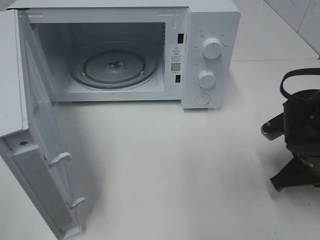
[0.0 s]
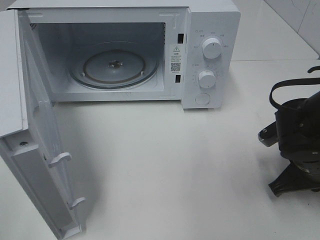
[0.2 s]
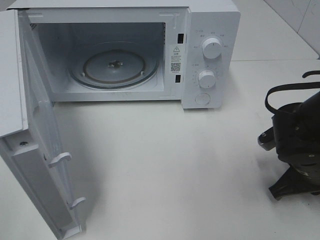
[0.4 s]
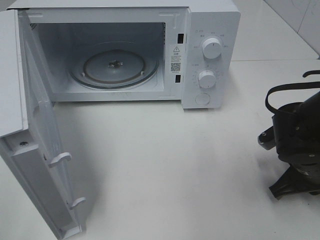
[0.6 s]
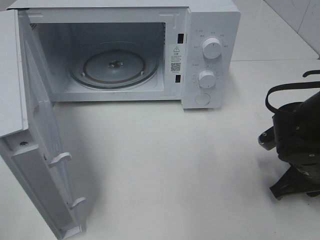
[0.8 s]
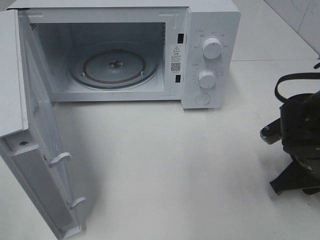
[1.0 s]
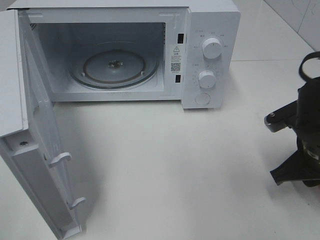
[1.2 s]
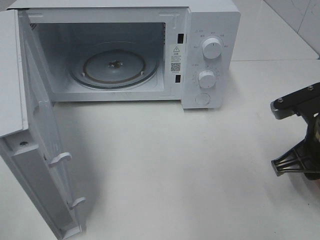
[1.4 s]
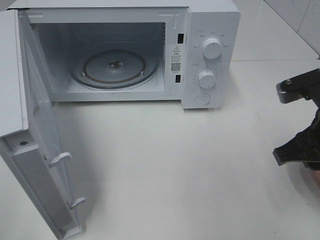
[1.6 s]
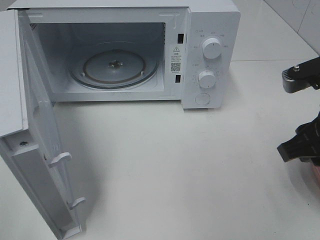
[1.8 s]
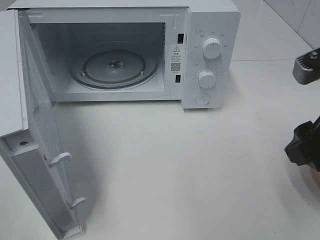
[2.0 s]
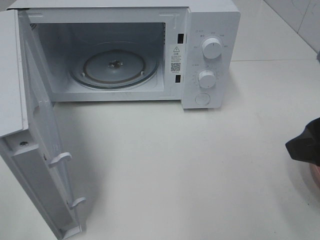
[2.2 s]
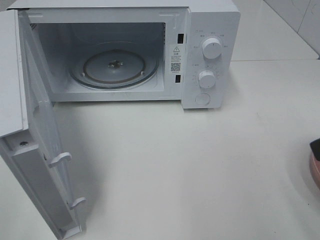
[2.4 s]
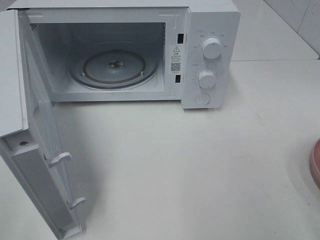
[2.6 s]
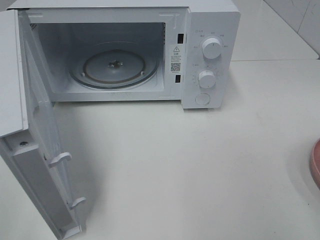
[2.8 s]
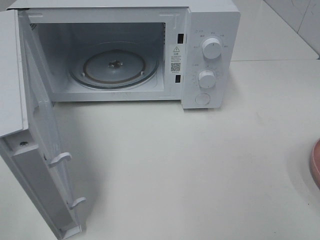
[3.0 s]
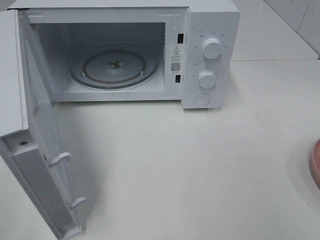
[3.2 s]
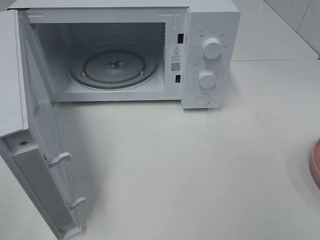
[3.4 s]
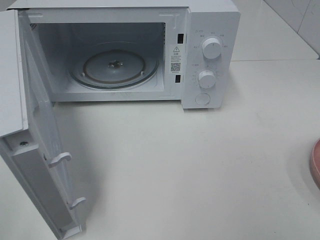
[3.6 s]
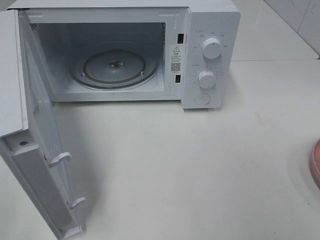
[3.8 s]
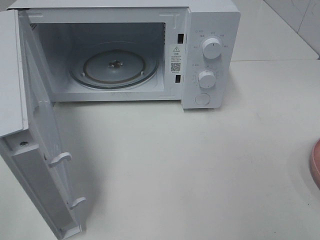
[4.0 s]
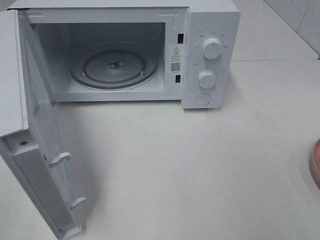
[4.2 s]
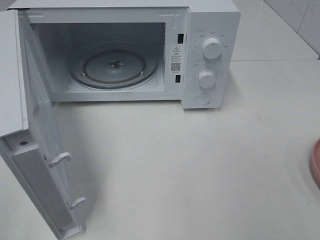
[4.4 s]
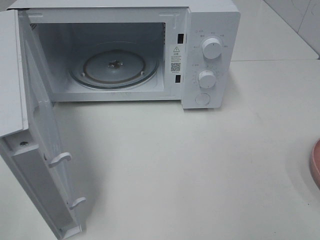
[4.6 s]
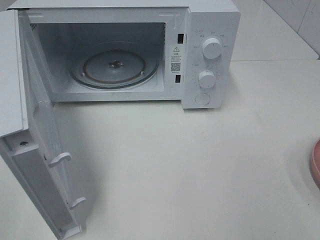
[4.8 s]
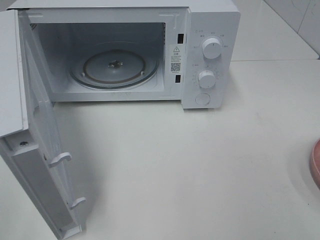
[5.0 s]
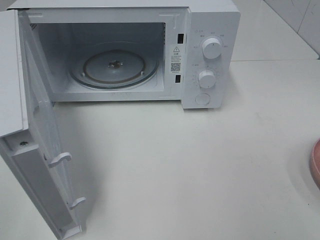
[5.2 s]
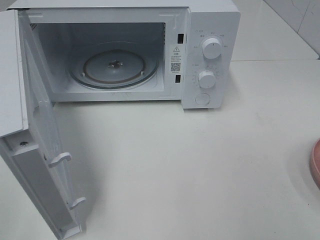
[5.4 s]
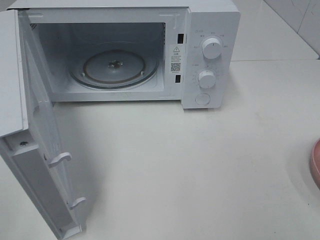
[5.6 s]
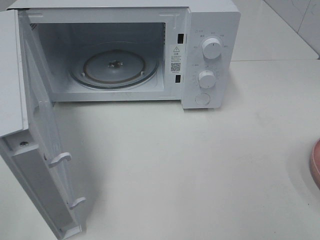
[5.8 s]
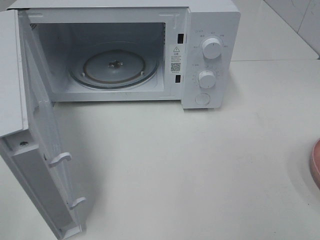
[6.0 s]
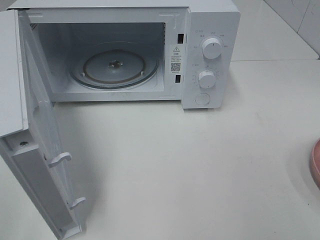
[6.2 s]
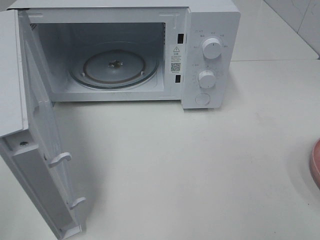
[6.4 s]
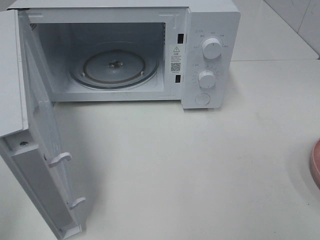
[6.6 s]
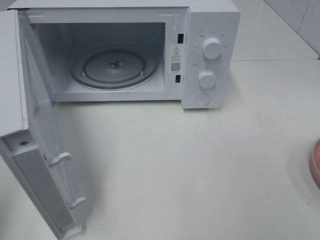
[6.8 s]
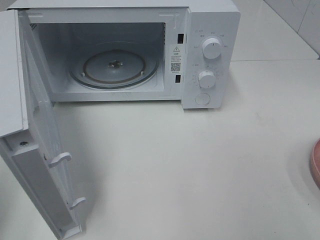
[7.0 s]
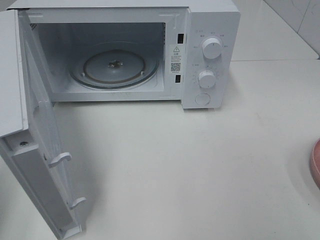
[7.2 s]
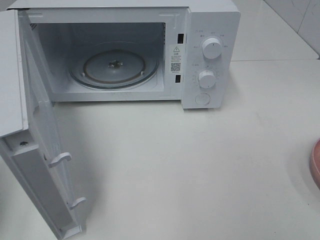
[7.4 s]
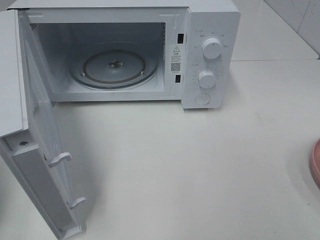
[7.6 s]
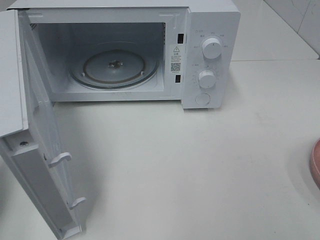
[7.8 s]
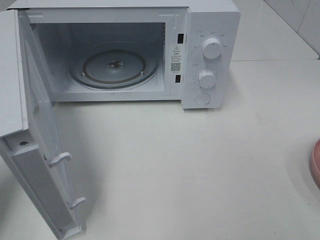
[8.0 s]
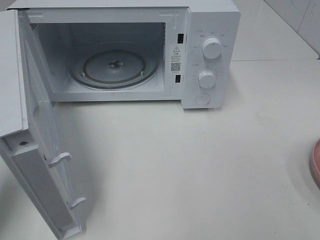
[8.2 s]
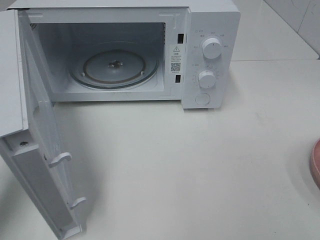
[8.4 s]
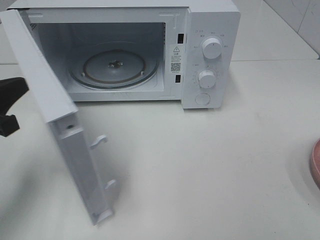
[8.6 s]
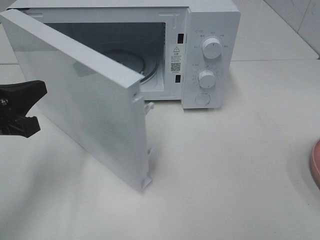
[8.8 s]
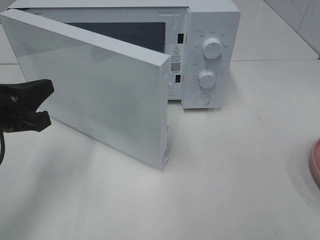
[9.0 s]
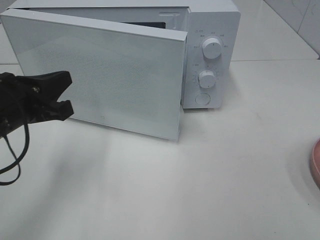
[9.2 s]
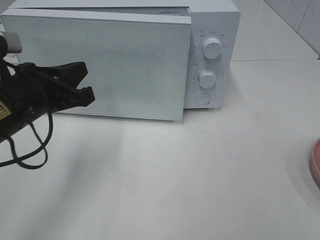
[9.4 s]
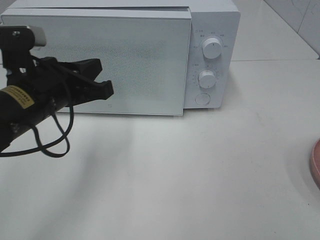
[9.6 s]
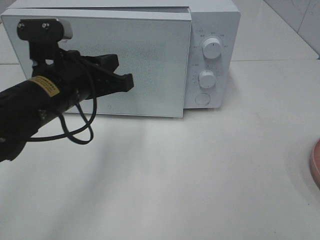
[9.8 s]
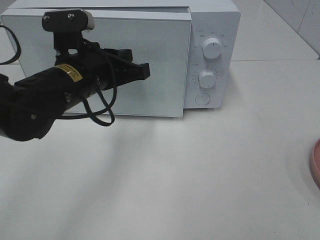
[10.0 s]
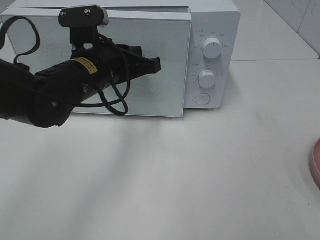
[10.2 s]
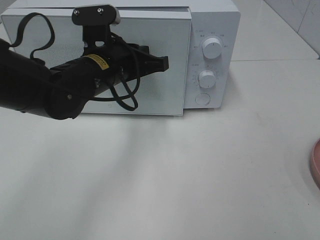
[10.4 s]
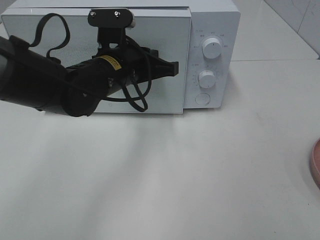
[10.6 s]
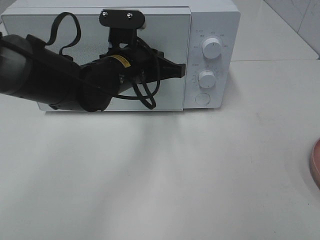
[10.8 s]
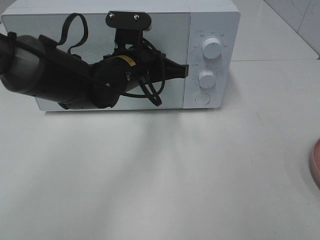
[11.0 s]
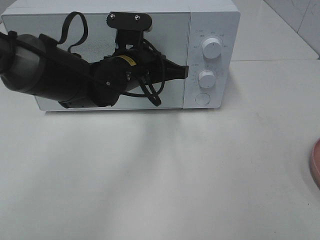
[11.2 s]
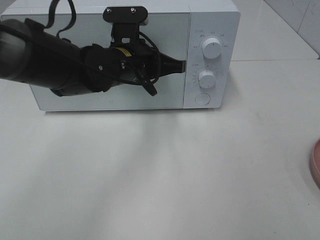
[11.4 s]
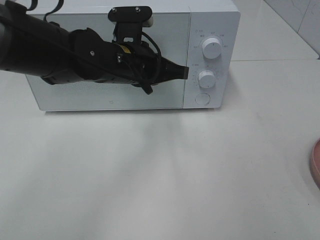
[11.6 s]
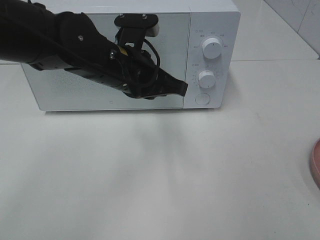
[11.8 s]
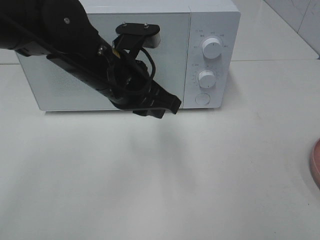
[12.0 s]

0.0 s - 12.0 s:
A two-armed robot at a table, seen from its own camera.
Task of the whole recording: Heat the burger.
Step, 1.2 s - 11.6 s: Left hand: close the microwave door.
0.0 s - 1.6 s: The right gripper is displaced upward by approximately 10 cm, and opens up.
1.6 s - 3.0 s: The right gripper heads backward and upward, covering approximately 20 cm, and opens.
4.4 s - 6.0 s: Neither gripper changes place.
7.6 s - 9.0 s: The left gripper goes some 15 cm to the right, forward and downward.
9.0 s - 10.4 s: The left gripper travels to the right and forward by about 20 cm.
10.4 s - 12.0 s: The left gripper ends up roughly 5 cm from where it was.

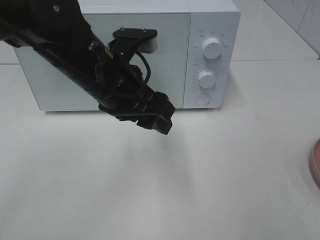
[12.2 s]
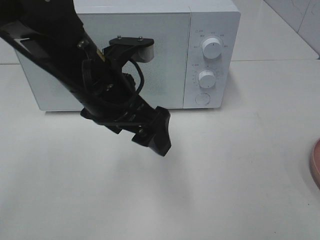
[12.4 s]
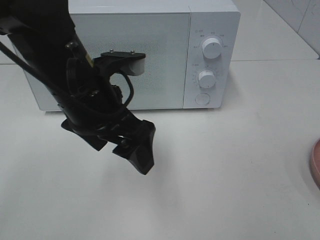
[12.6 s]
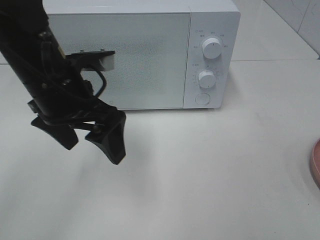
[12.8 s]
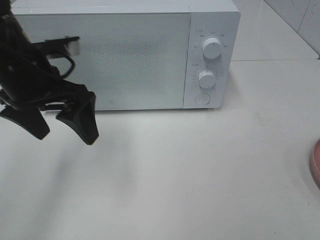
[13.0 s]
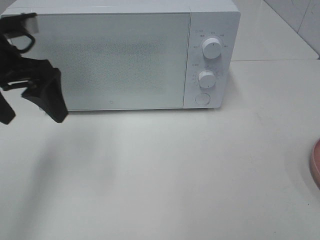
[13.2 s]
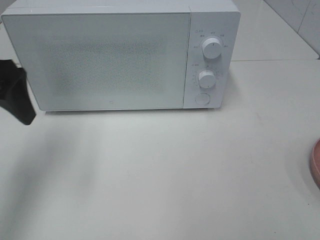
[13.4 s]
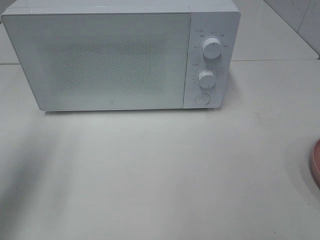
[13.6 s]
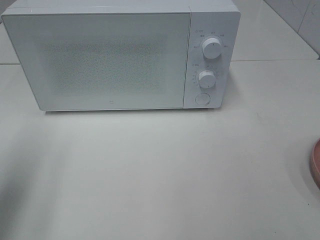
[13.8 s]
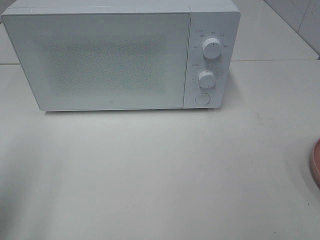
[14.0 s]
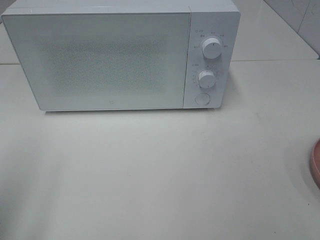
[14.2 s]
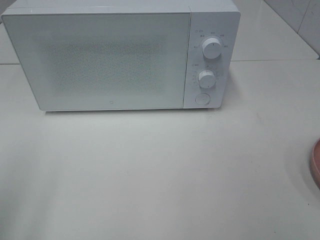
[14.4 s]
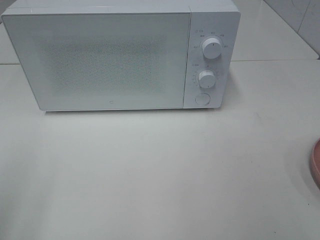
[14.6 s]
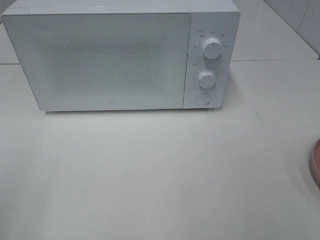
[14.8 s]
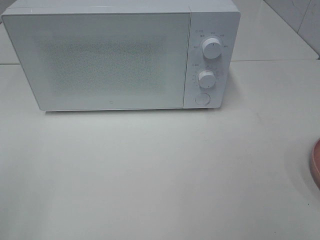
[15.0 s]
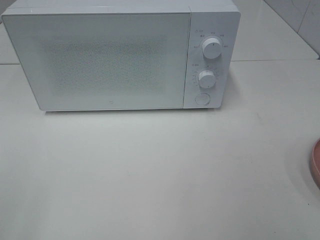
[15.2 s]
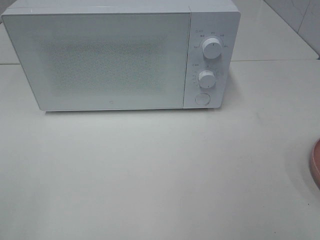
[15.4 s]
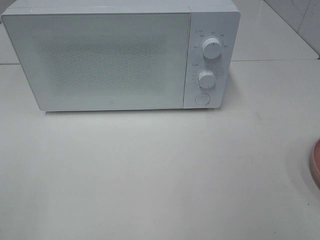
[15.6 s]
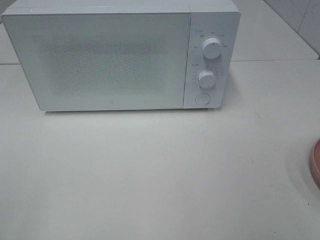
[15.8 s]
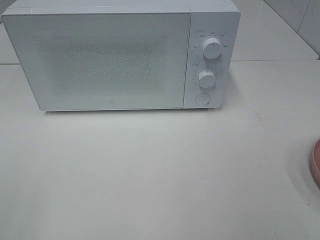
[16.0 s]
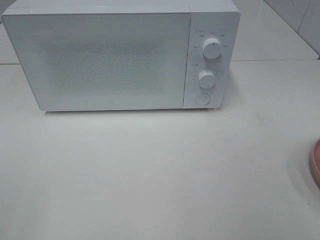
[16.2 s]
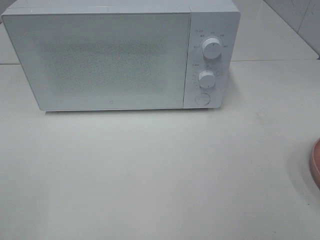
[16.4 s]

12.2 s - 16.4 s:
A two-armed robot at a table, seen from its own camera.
Task of the whole recording: Heat the burger.
12.2 s - 13.6 s: The left gripper is displaced to the left by some 25 cm.
13.6 s - 15.0 s: The left gripper heads backward, covering approximately 20 cm.

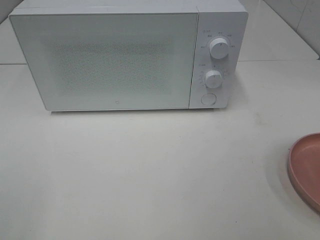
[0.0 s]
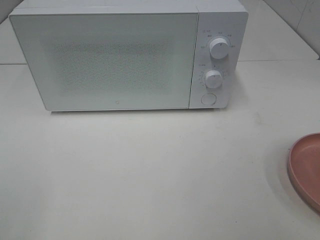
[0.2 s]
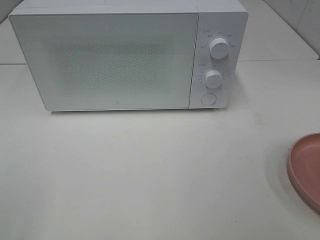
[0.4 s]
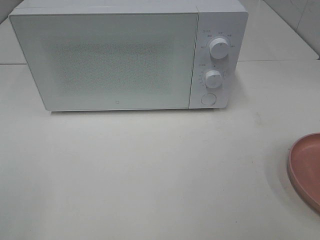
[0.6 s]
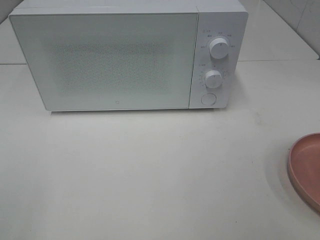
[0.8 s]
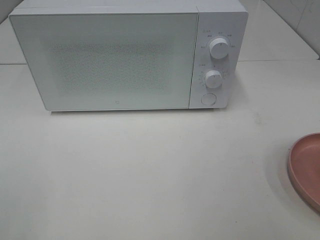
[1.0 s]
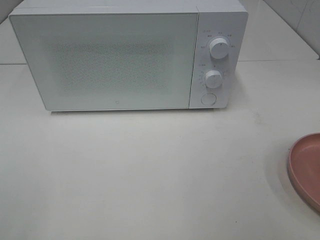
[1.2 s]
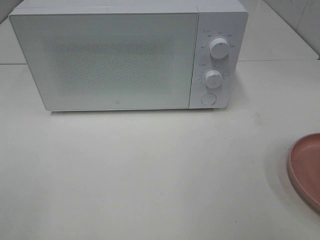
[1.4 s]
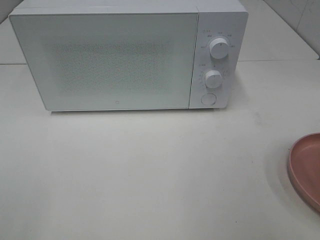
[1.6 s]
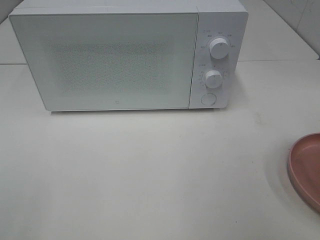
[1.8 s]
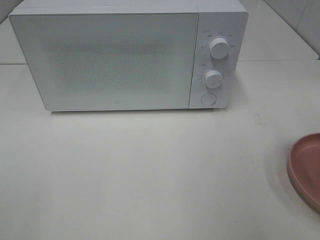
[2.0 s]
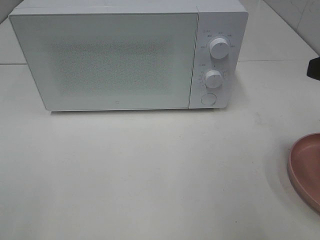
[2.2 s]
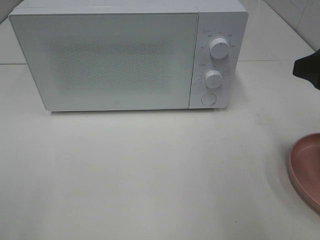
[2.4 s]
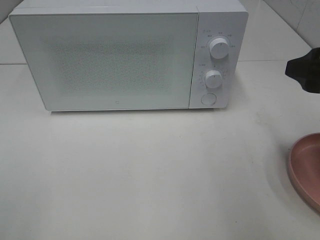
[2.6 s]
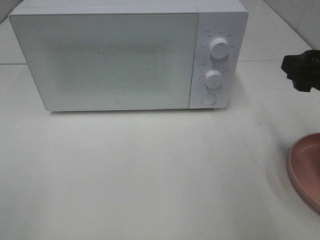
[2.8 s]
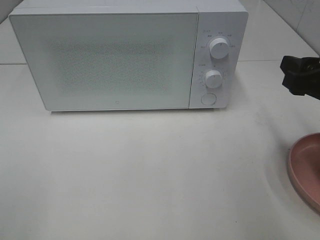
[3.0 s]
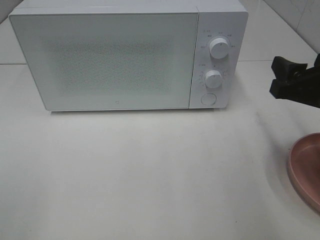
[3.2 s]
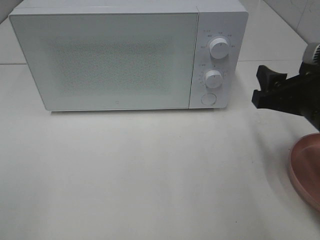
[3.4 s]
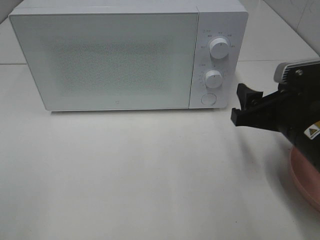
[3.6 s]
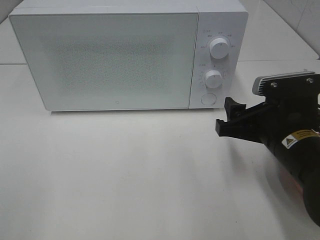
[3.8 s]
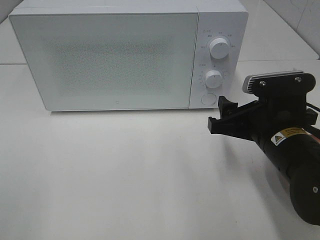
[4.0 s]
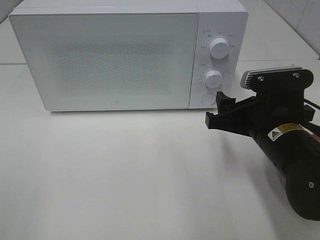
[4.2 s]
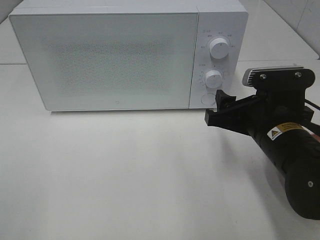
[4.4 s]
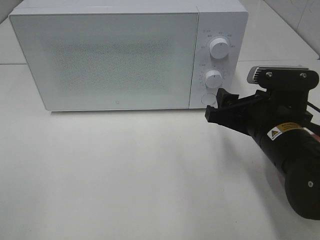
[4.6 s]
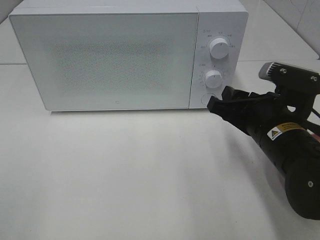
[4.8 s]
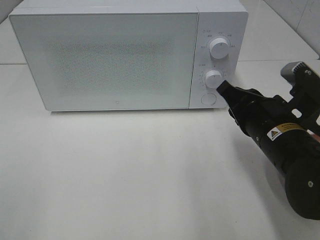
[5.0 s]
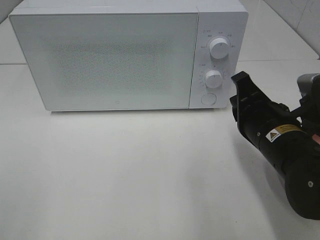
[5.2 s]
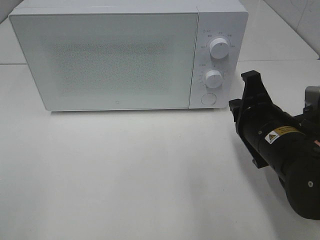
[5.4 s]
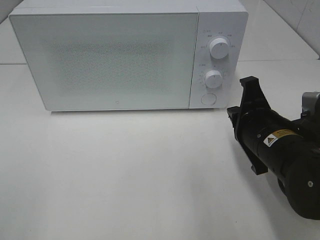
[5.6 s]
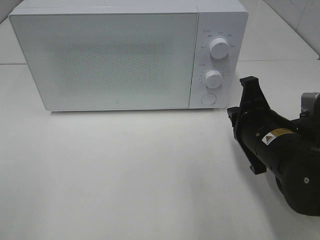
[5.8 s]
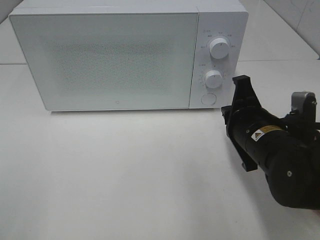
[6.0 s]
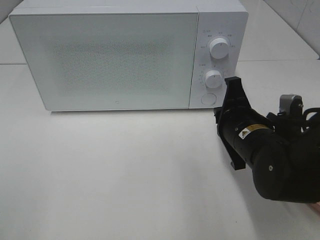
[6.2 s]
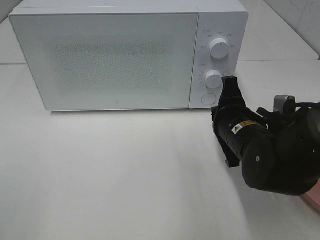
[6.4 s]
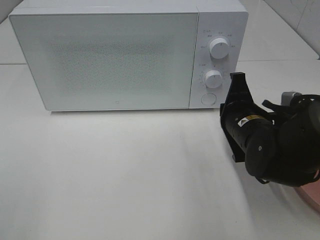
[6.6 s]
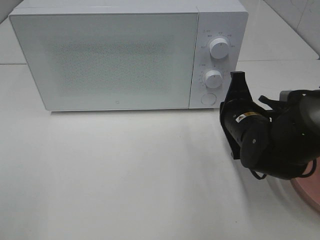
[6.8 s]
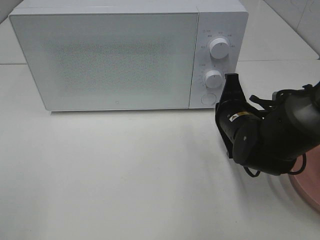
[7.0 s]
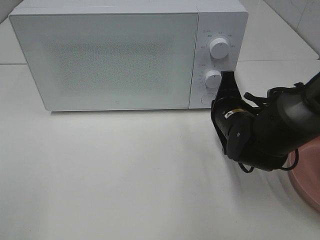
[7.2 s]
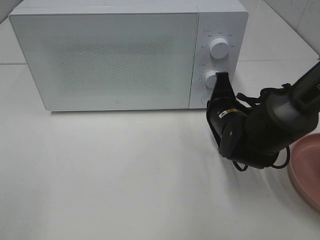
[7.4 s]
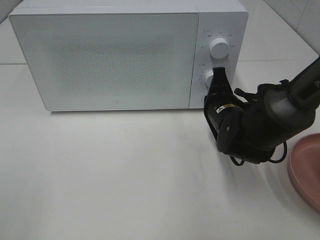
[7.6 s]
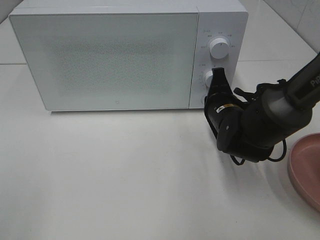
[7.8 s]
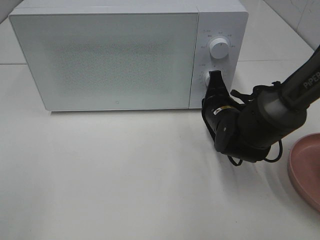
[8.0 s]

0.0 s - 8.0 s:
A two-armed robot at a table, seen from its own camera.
Task of the whole recording: Heat the burger.
1.6 s - 3.2 s: The right gripper shifts some 15 cm forward and downward.
3.2 s - 4.8 s: The right gripper is displaced to the left and downward by roughly 10 cm.
4.8 s - 6.4 s: The right gripper changes place by some 5 cm, and closes.
6.4 s - 8.0 s: The right gripper goes about 5 cm forward.
